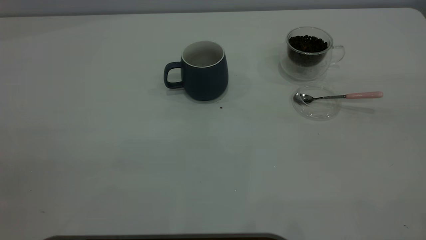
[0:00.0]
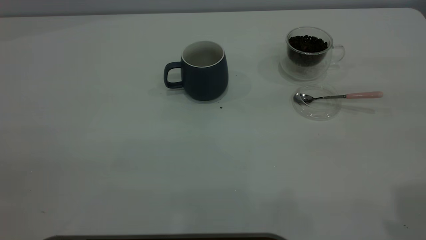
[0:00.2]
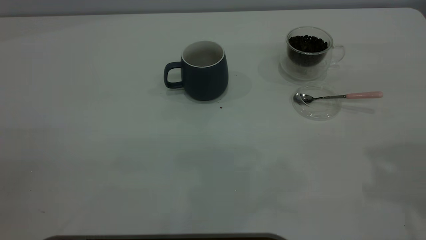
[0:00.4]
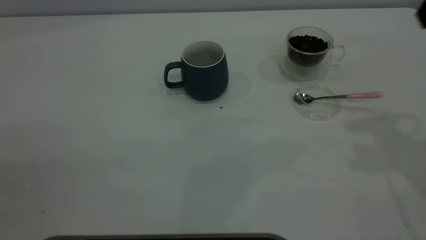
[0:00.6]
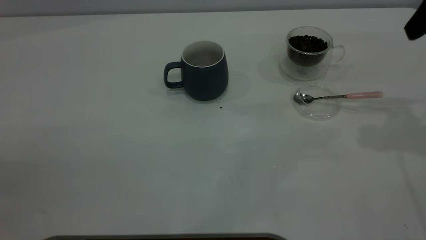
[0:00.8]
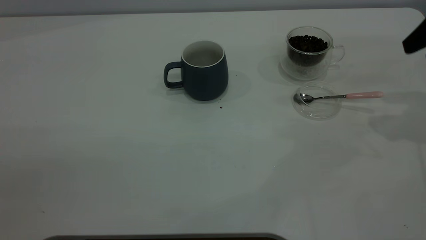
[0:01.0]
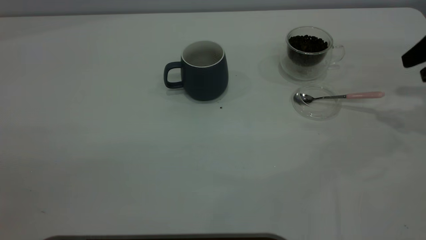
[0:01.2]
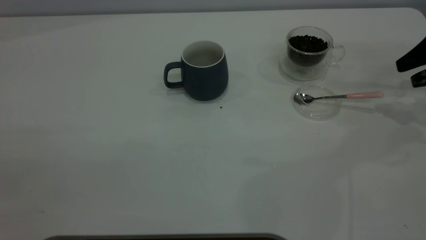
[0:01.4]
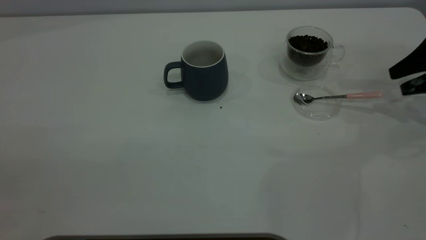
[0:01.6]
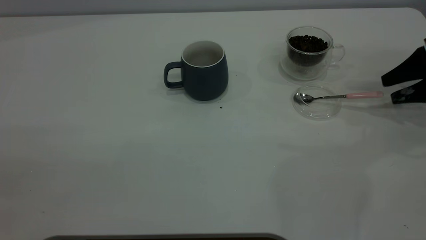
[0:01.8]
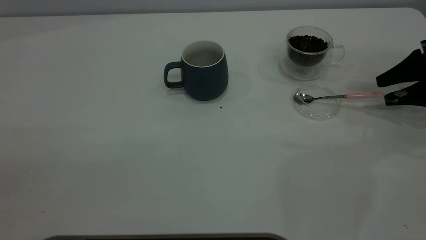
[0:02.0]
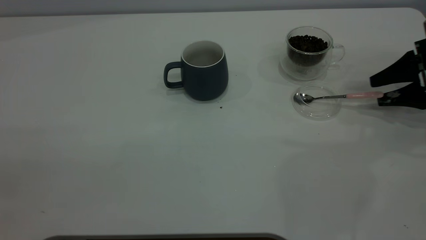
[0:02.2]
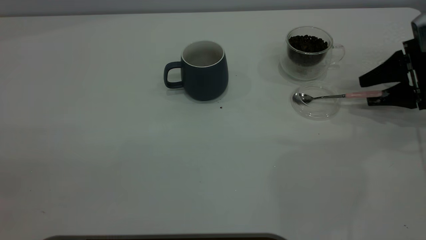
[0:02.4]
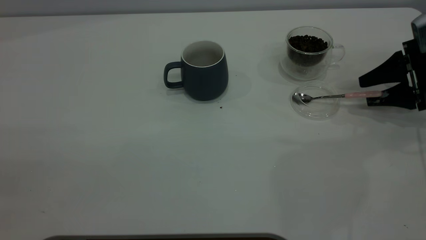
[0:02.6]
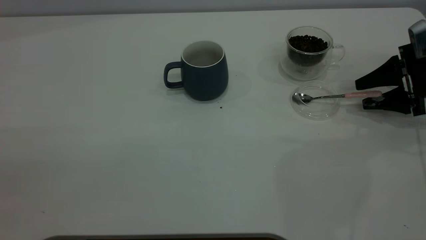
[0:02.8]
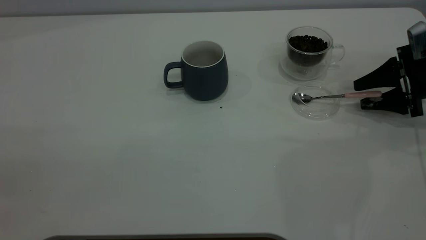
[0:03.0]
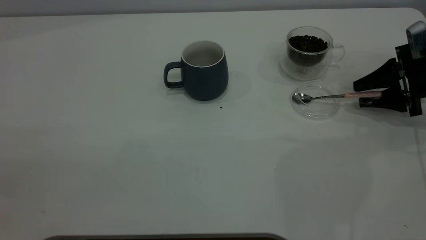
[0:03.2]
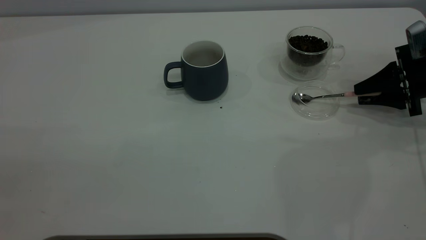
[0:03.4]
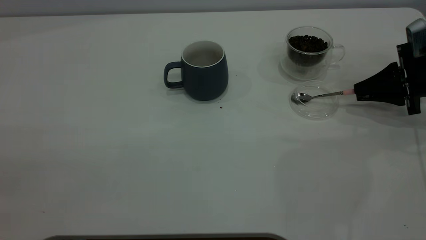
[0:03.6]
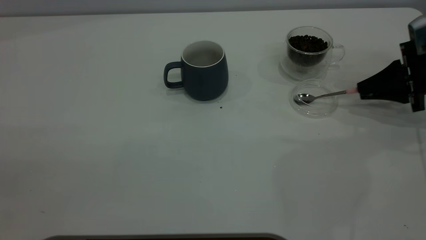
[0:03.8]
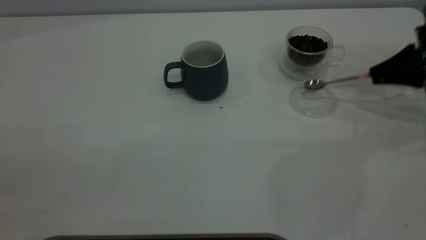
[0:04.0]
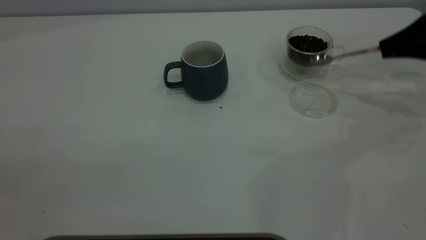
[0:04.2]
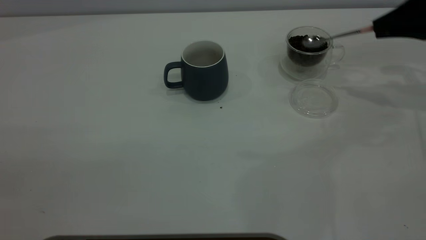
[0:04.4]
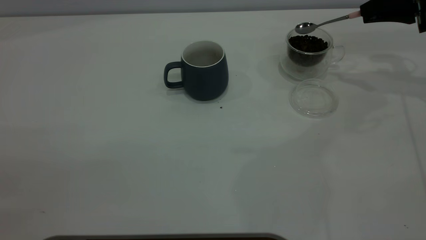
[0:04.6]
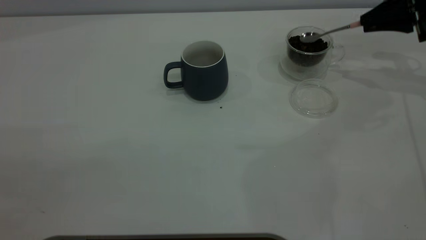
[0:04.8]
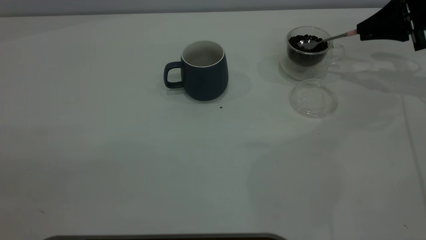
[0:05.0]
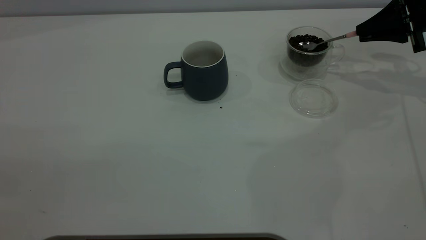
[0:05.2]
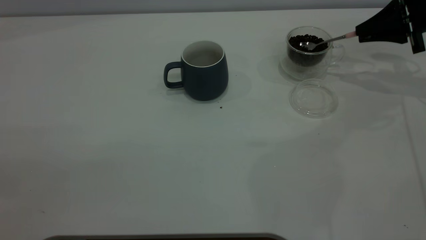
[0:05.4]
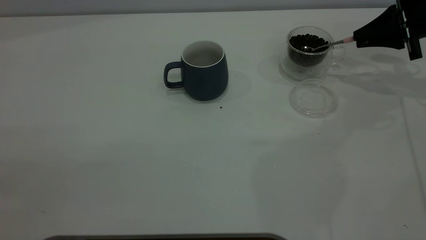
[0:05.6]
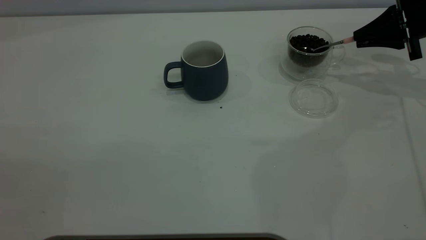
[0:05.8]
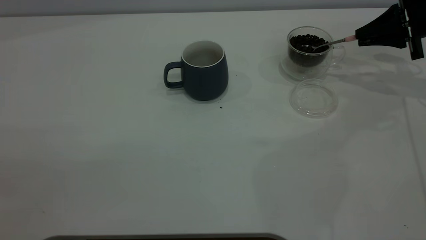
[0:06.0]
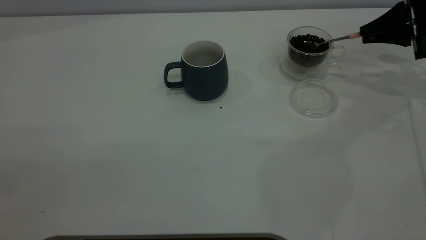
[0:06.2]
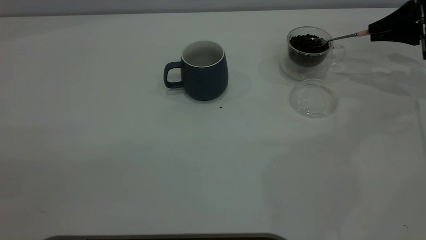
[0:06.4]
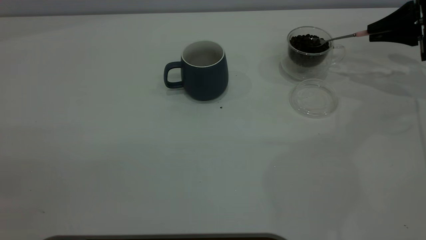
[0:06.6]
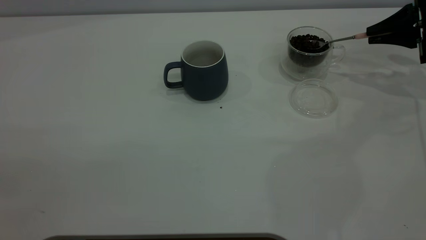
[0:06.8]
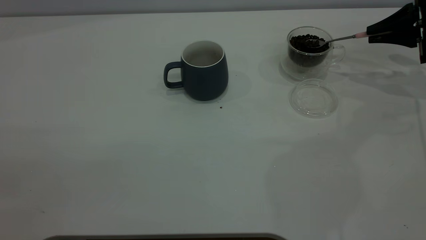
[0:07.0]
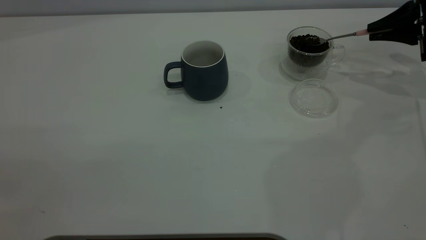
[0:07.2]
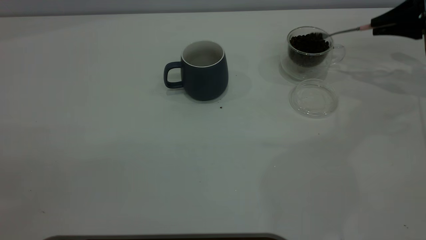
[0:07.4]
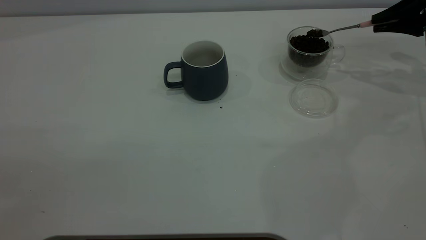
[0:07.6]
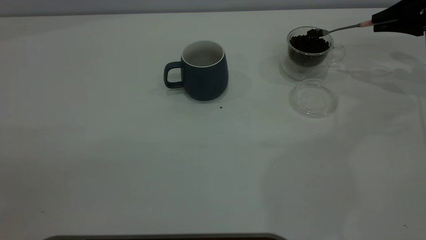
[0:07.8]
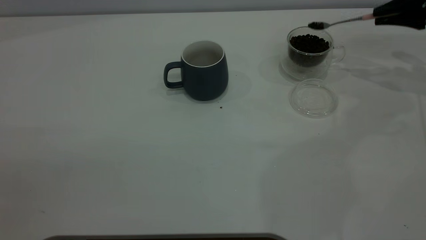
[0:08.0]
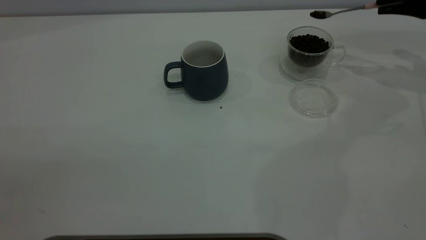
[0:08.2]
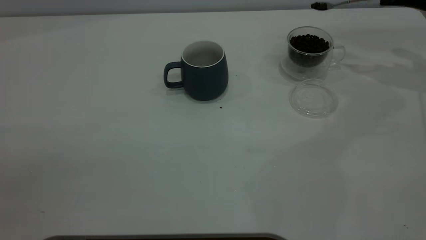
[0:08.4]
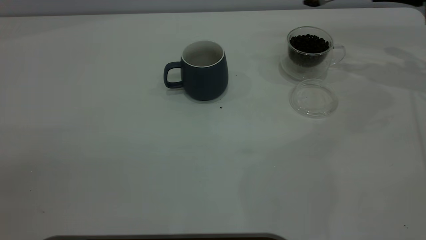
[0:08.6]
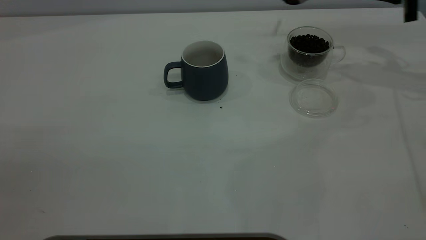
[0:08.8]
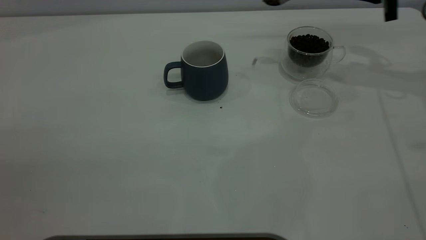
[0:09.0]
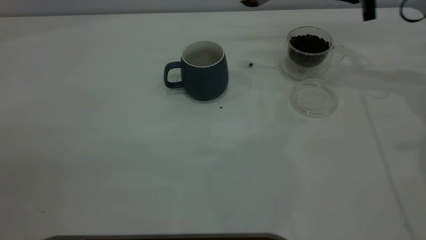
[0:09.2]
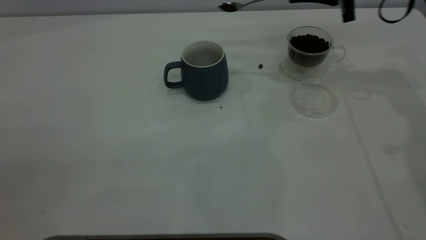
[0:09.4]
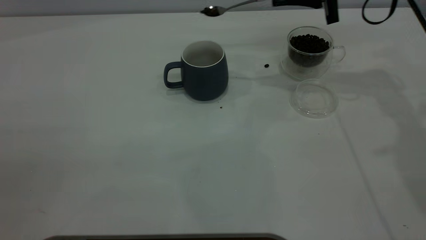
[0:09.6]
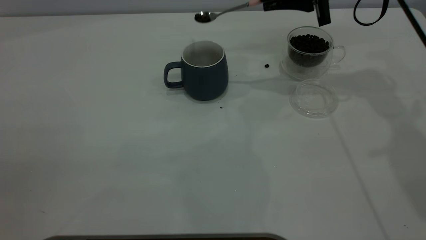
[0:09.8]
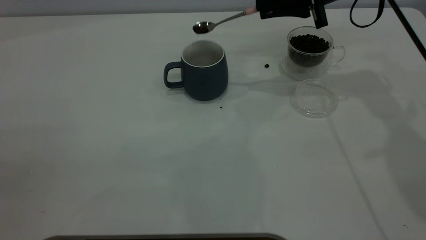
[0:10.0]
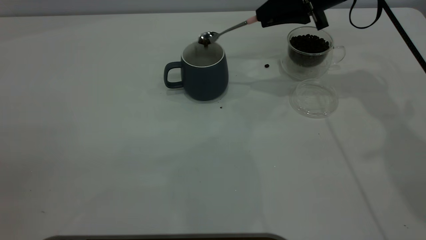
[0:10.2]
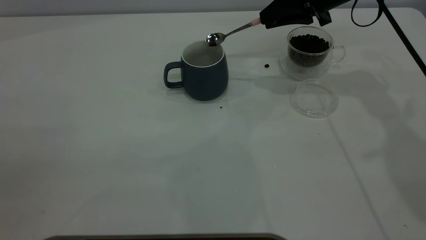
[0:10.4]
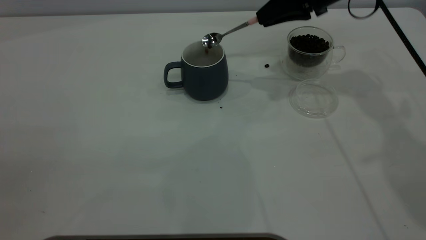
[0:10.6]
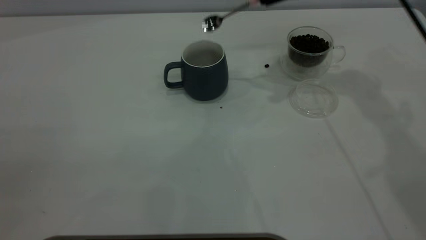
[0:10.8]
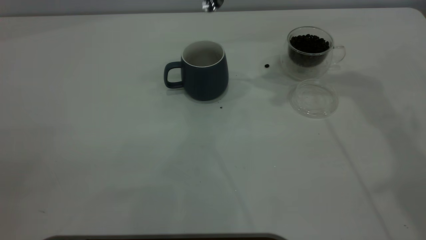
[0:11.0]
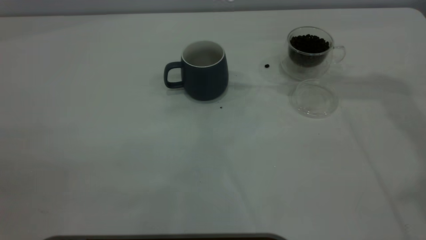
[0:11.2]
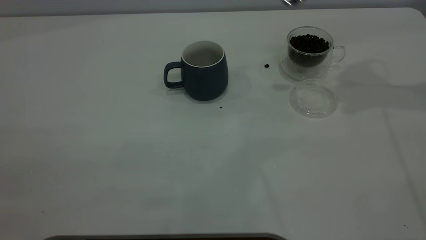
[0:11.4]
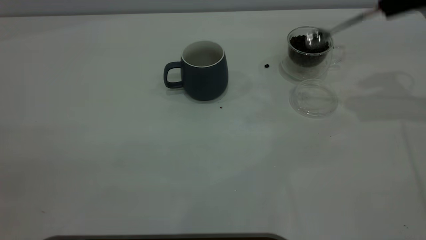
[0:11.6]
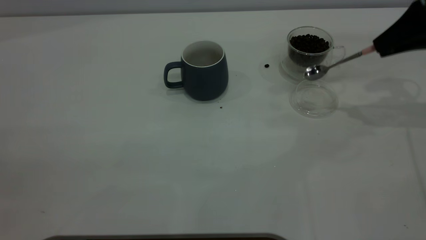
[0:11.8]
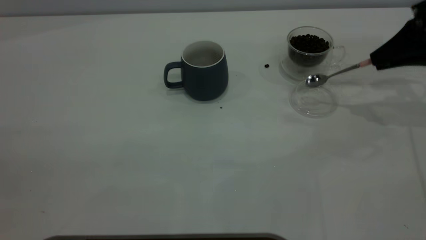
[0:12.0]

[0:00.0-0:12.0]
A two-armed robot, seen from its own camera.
Task of the whole recording: the left gripper place the grey cup in the center of the table, the right gripper take the pink spoon from the cup lid and scoop out the coffee beans from the coffee cup and put them into the grey cup, the right gripper put the spoon back into the cup lid.
Step, 0:00.0 to 0:04.0: Pick up the spoon.
Step, 0:04.2 to 0:10.6: Scoop a spoonful of beans into the cup.
0:00.0 to 0:01.6: The right gripper travels forward and downward by some 40 cm.
0:01.6 to 0:03.0: The right gripper changes place by some 5 cm.
0:03.0 to 0:04.4: The right gripper is displaced upward by approximately 10 cm, and closes its fingers.
0:04.4 to 0:06.0: There are only small adjustments of the grippers.
0:06.0 to 0:07.6: The grippers stay close to where they were, moving slightly.
0:07.6 to 0:09.0: The right gripper shifts roughly 10 cm to the left.
0:09.0 to 0:10.4: The right gripper shifts about 10 cm to the left.
0:10.4 to 0:12.0: The right gripper travels to the right and backward by some 20 cm.

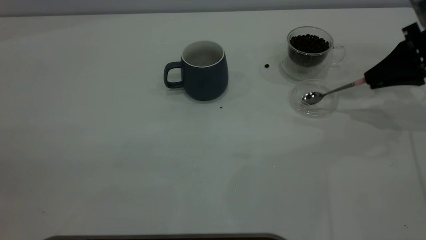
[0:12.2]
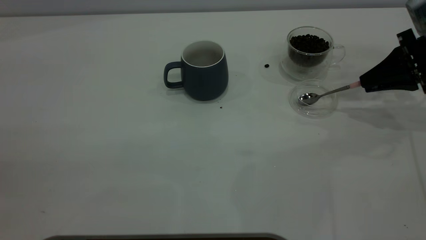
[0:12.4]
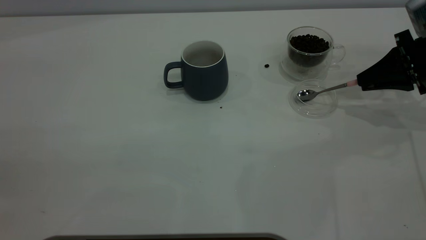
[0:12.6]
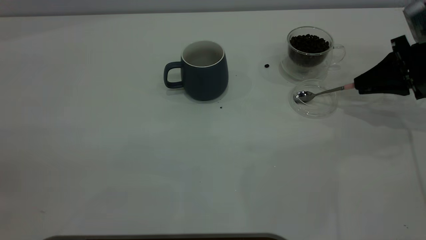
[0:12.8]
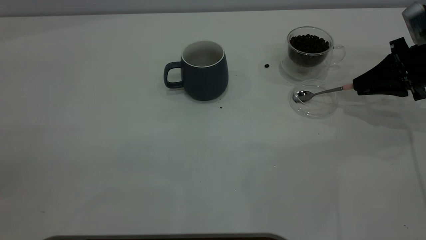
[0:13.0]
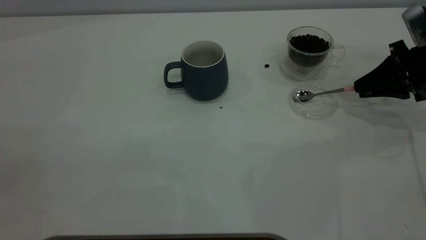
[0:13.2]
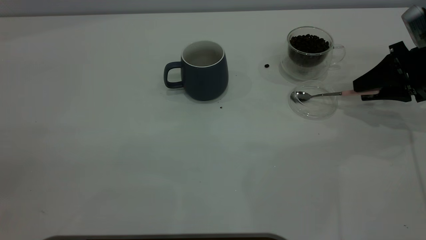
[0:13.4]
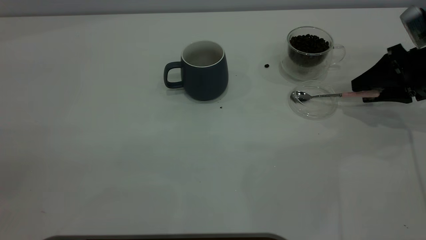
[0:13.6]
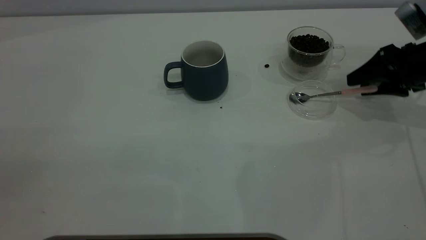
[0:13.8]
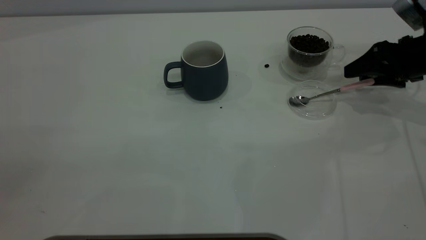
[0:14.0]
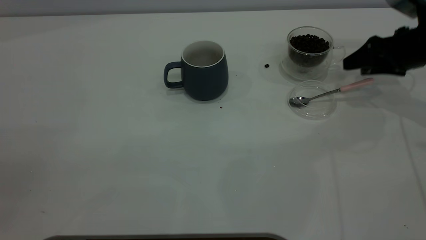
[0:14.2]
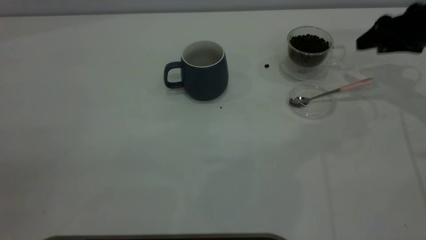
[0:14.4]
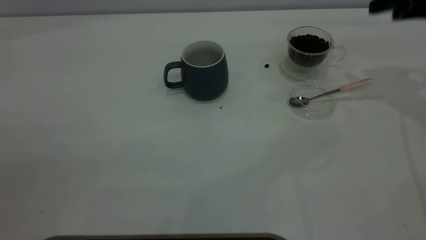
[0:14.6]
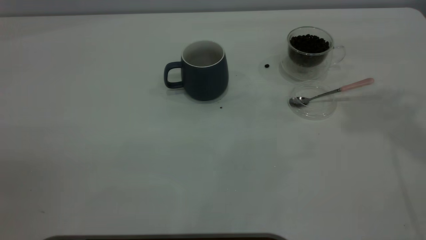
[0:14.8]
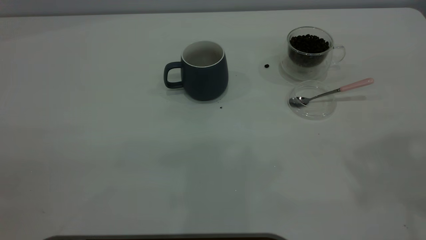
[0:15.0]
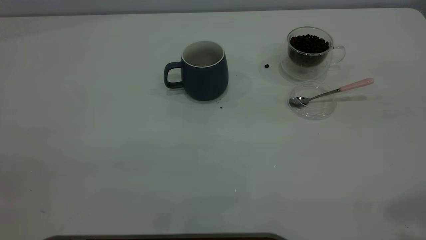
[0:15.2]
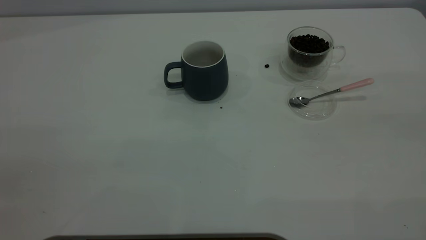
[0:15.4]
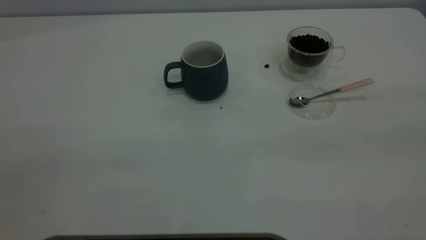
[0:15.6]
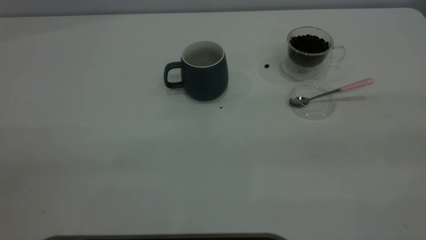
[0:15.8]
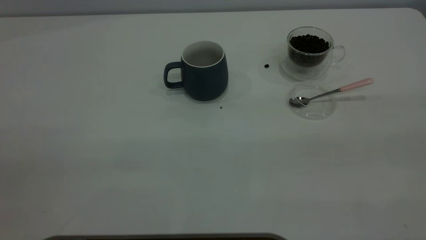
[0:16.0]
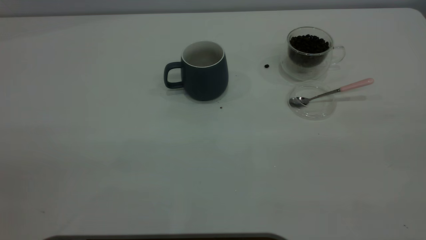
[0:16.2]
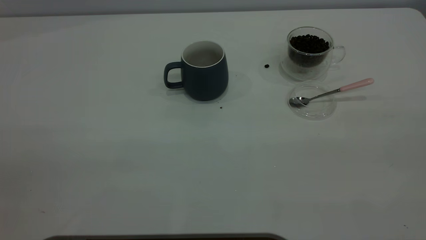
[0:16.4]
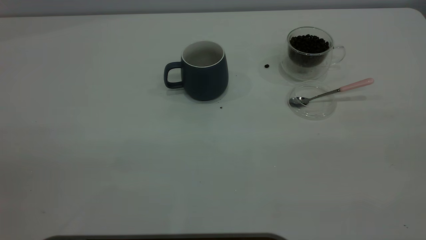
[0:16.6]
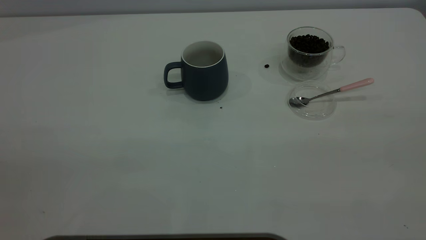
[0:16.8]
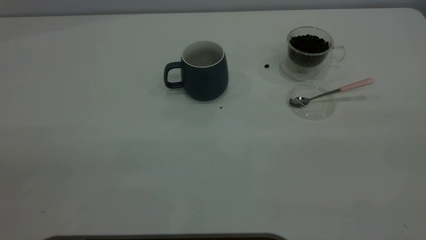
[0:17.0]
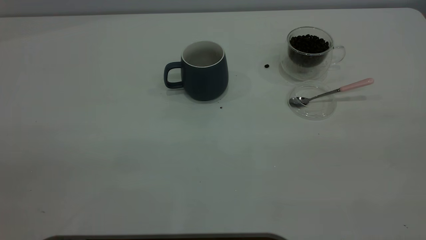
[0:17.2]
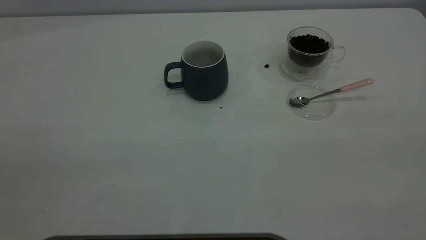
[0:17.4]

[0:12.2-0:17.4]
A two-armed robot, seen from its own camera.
Task of the whole recording: the left gripper place the grey cup in the center of the table, the right gripper take the pink spoon from the cup lid and scoop out the coffee beans from the coffee cup and put them into the grey cup, the right gripper put the spoon back into the cup lid.
Step, 0:12.2 to 0:14.2: Place the spoon back in its original place.
0:12.2 to 0:14.0: The right gripper opens its fingers.
0:14.0 to 0:15.6: The right gripper moves backward and upward, some 40 cm.
